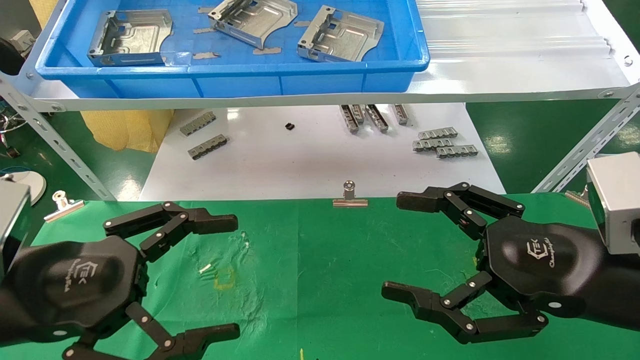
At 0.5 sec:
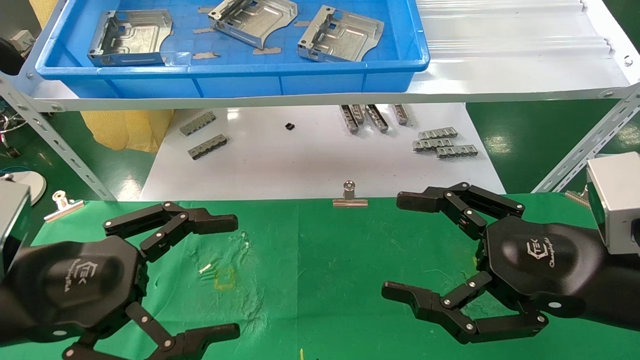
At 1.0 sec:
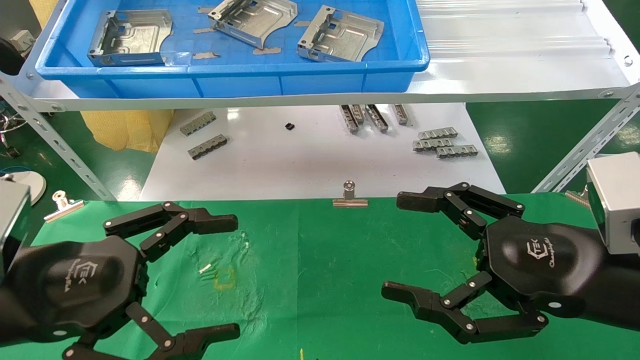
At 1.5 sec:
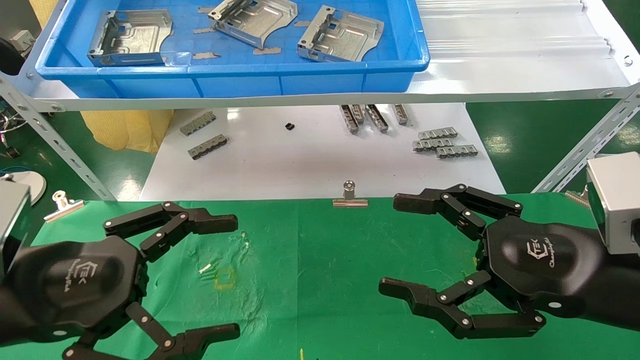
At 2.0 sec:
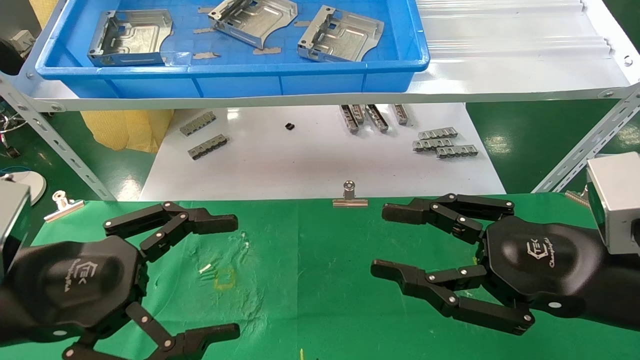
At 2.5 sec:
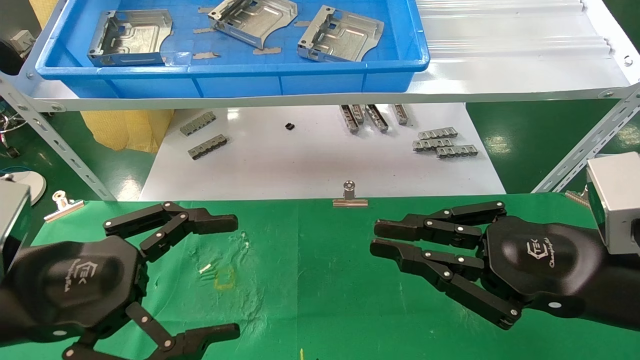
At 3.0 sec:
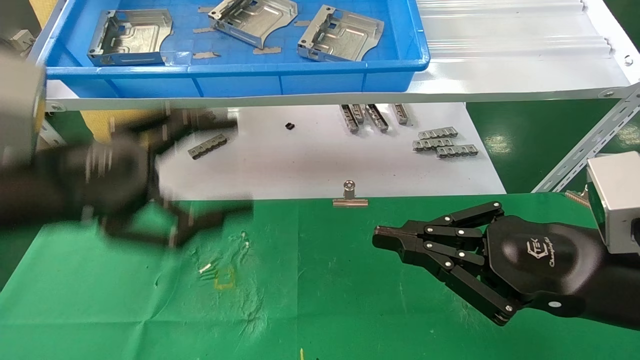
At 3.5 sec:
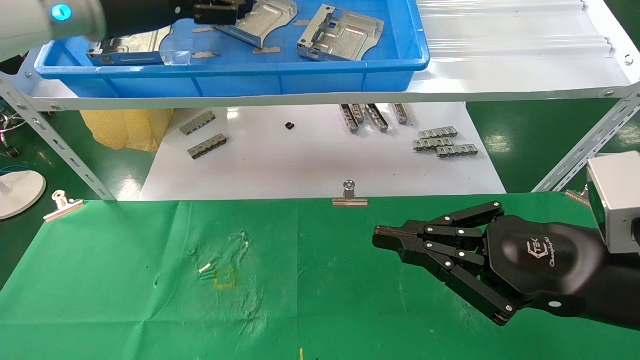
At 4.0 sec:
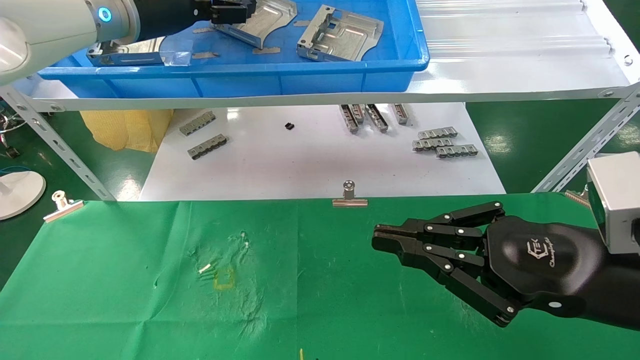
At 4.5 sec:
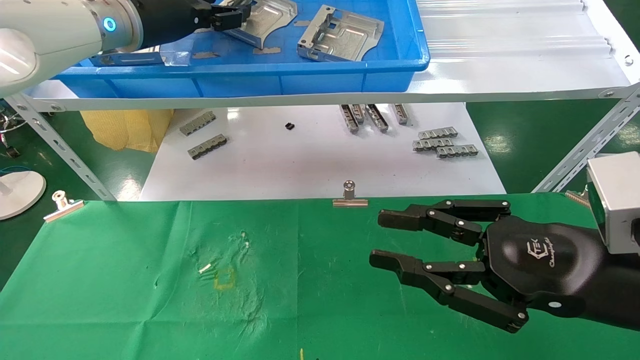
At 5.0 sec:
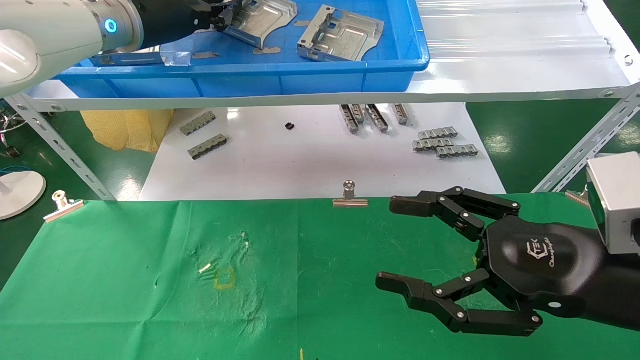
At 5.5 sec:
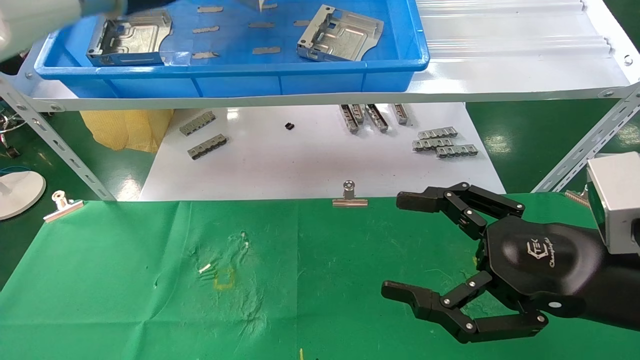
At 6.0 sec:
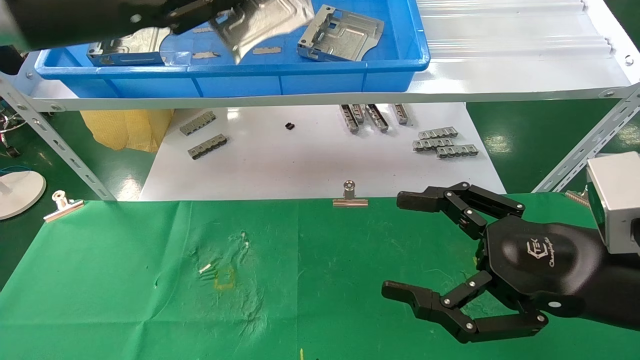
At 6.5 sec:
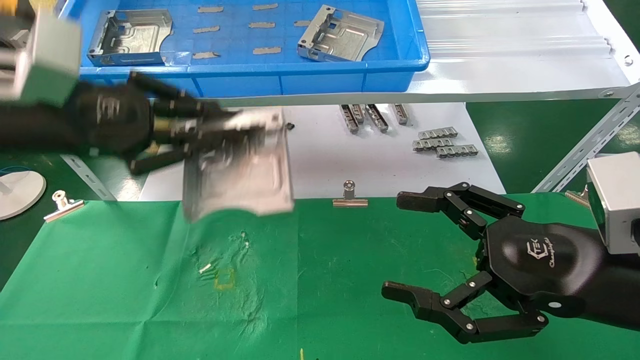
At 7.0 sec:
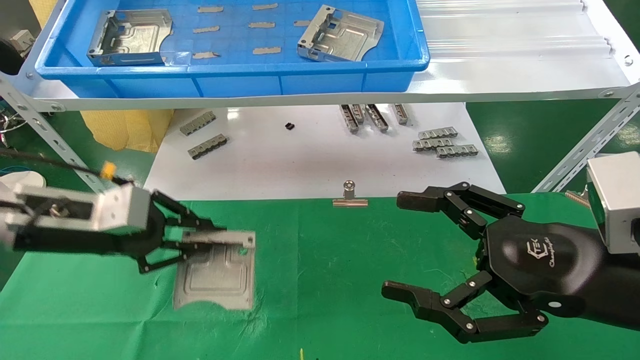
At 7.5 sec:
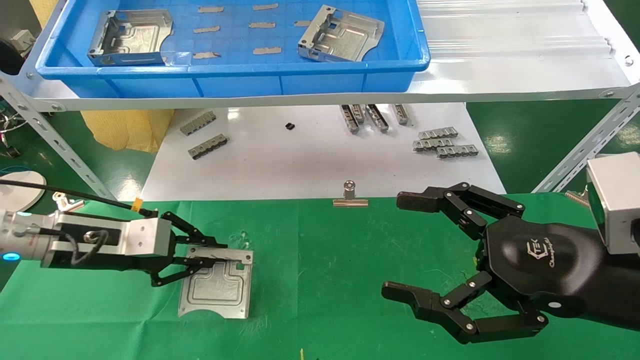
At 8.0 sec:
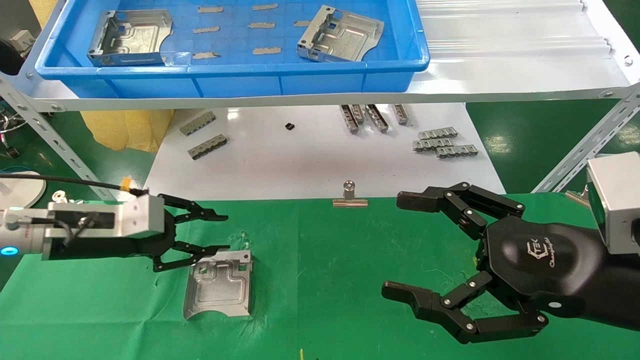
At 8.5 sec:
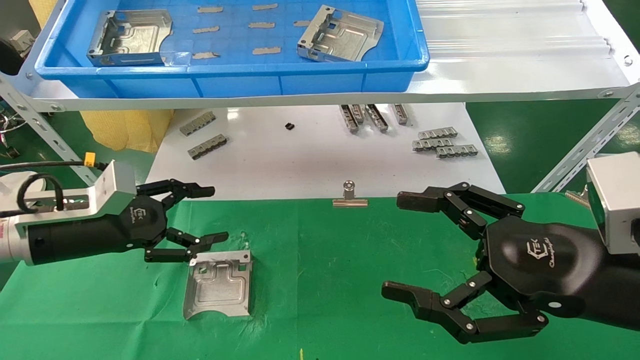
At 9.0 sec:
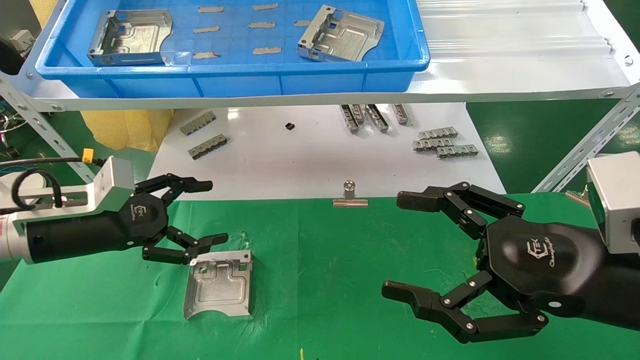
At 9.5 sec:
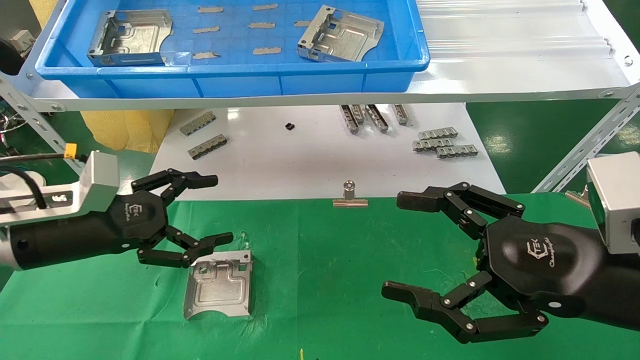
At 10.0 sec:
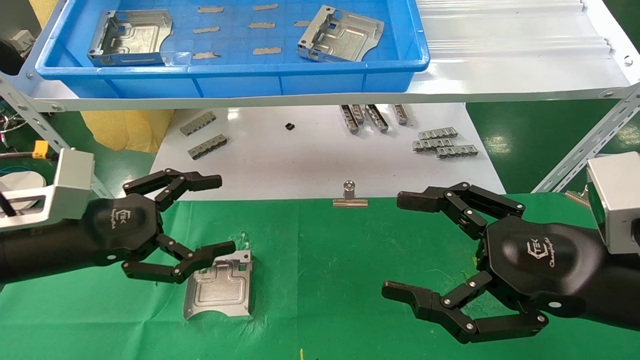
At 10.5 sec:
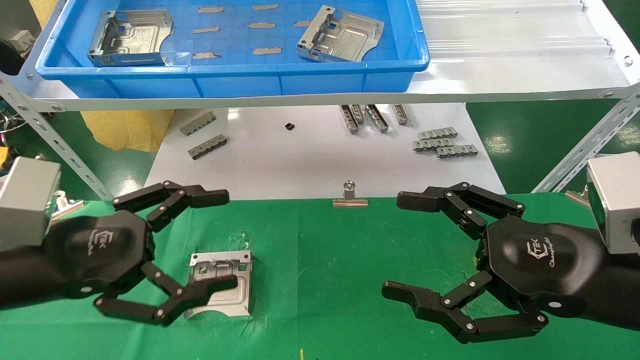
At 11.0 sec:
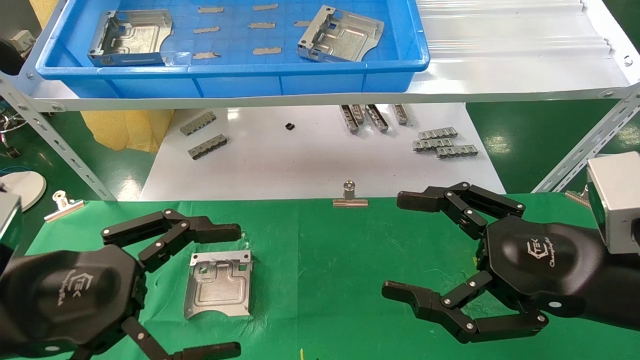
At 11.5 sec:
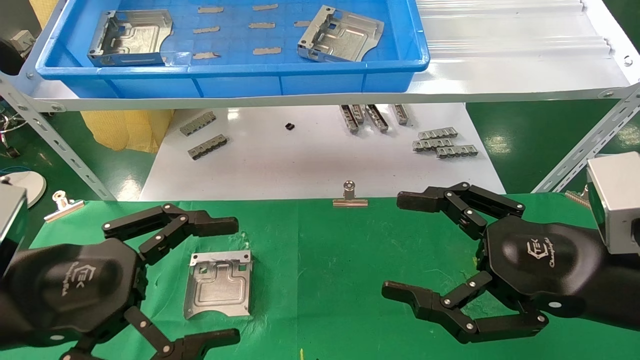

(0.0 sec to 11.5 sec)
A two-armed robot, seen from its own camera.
Task of the whole recording: use the mechanical arm to pick up the parts and place them on the table.
Step, 3.0 sec - 5.0 sec: Pick up the hard drive bracket from the feeding area.
Step, 5.5 sec - 8.0 sec: Place the hard drive bracket into the box.
0.0 sec - 2.0 sec: The right gripper closes.
2.0 sec - 4.0 sec: The left gripper heads forward and upward, covering approximately 35 cm, while the right gripper closes up.
4.0 sec - 6.0 sec: The left gripper goes about 10 cm backward, and closes, while the right gripper opens.
6.0 sec - 7.5 sec: The left gripper is displaced downward by about 25 cm.
7.5 sec - 9.5 sec: The left gripper opens.
9.5 sec - 11.5 sec: The left gripper shifts approximately 15 cm backward.

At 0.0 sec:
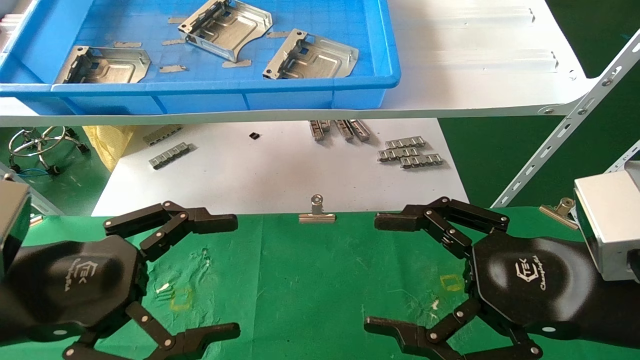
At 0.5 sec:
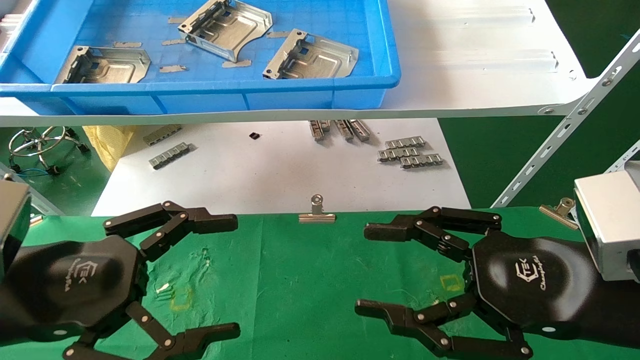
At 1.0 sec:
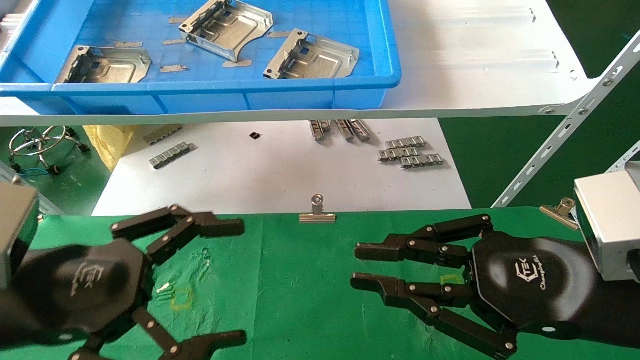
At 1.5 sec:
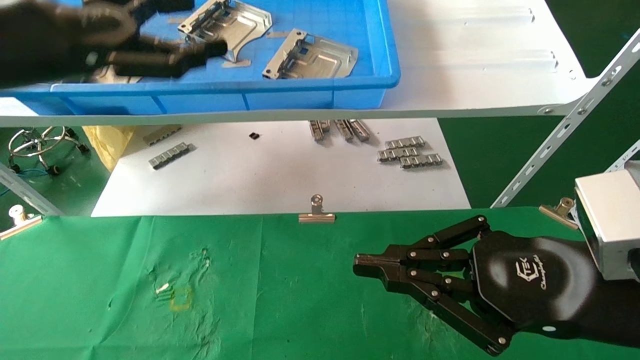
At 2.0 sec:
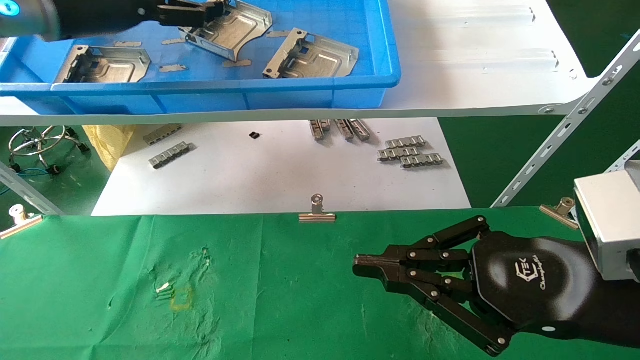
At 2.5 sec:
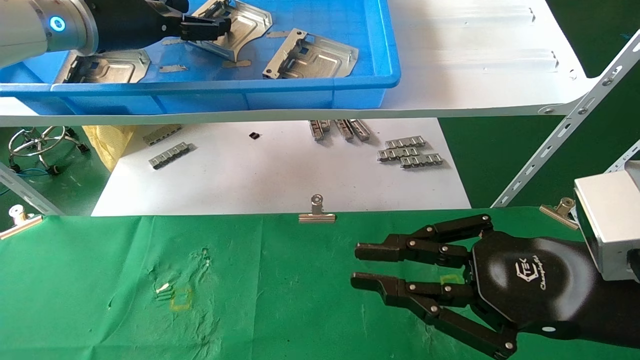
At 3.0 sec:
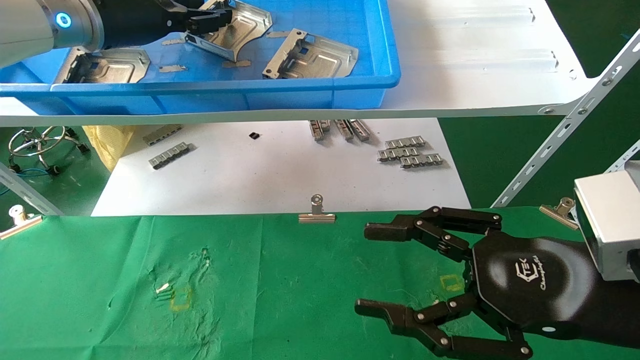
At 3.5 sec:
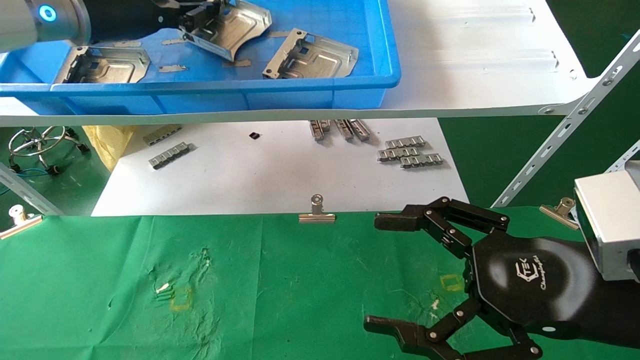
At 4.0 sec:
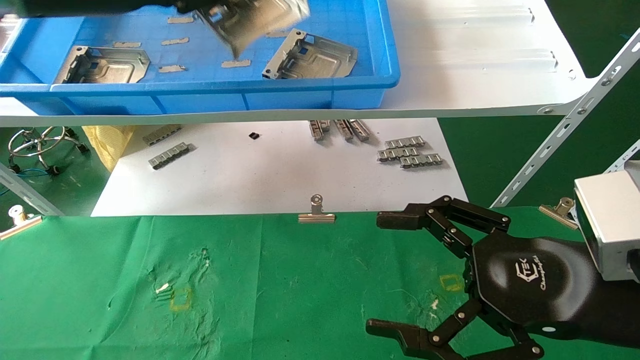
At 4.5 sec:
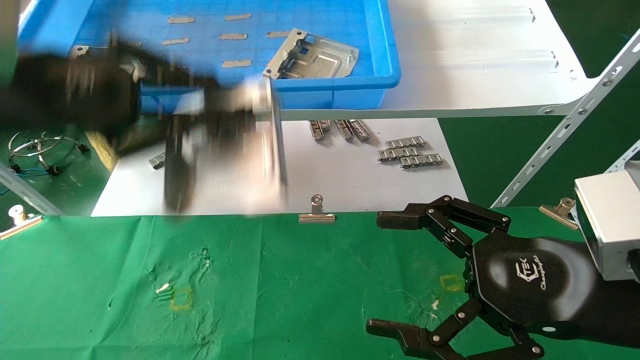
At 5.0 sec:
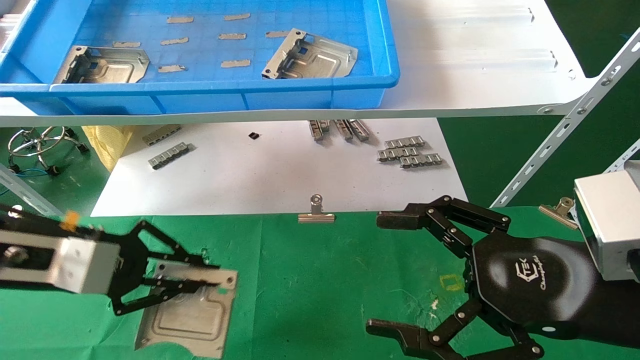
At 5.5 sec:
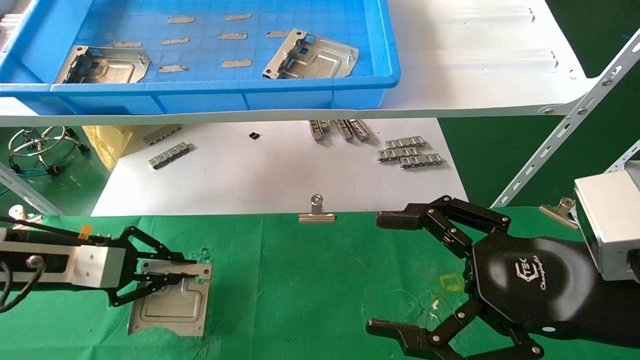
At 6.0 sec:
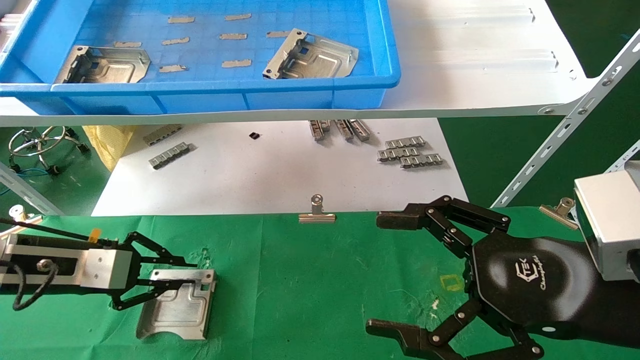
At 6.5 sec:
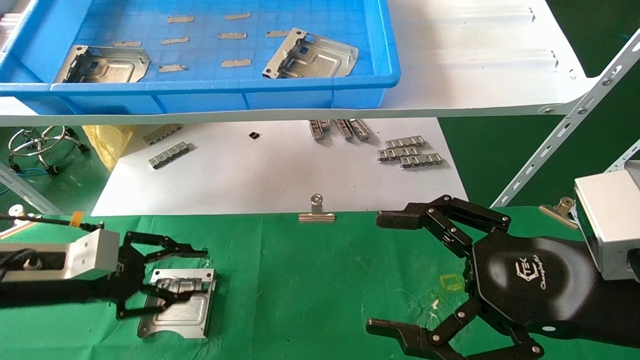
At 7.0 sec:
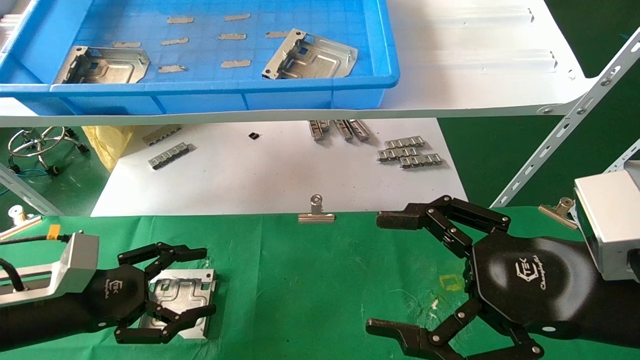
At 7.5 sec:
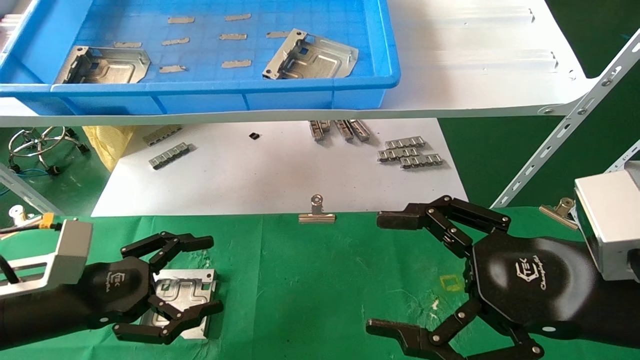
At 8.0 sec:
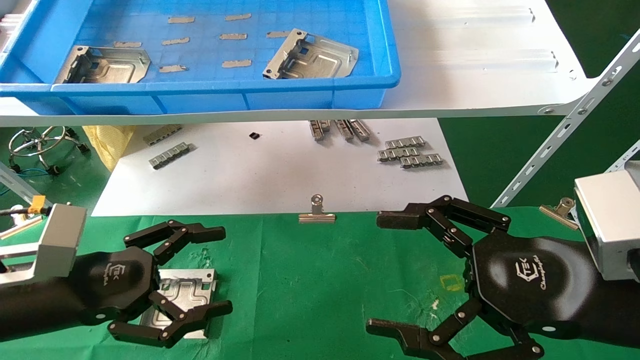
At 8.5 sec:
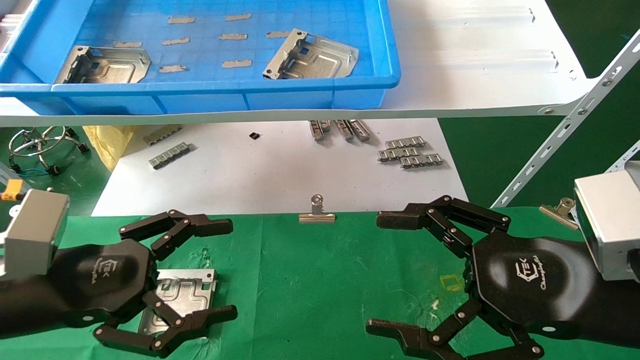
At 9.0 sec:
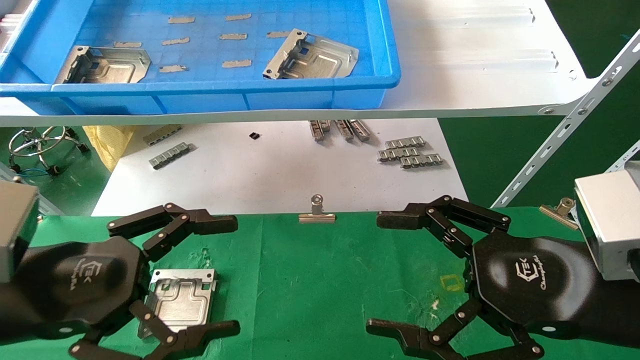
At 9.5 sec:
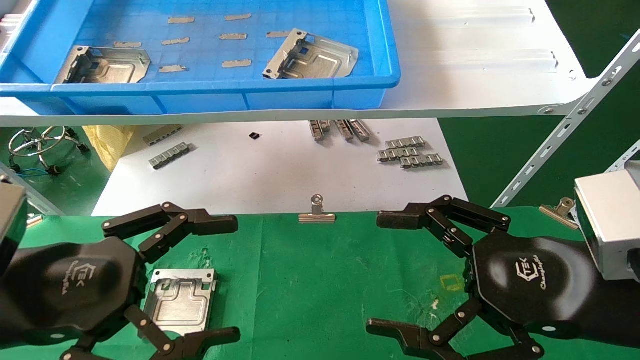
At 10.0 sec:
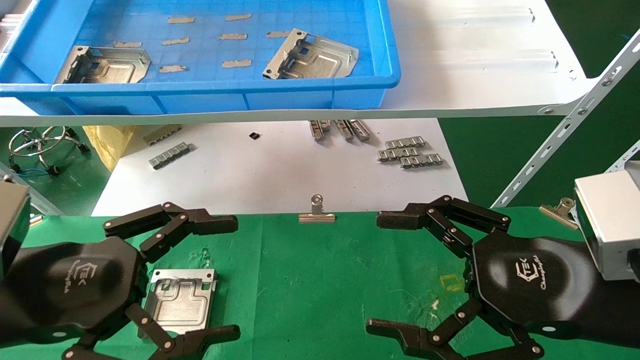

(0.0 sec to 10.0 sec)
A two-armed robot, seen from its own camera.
Task of the whole recording: use the mechanical arm to pick up the parts and place them on the table.
Step, 1.5 sec - 3.5 sec: Pick up the hard drive bracket from the feeding area.
Step, 4.0 sec - 6.5 sec: Place the hard drive bracket into the box.
0.0 sec - 2.0 sec: The left gripper goes roughly 30 cm upward and forward. Meanwhile the right gripper closes its fingers.
2.0 sec - 4.0 sec: The left gripper travels backward by roughly 5 cm, and closes its fingers, while the right gripper opens its fingers.
4.0 sec - 6.0 sec: The left gripper travels downward by about 30 cm.
6.0 sec - 8.0 sec: The left gripper travels backward and to the right by some 10 cm, and opens up.
8.0 sec - 10.0 sec: The left gripper shifts some 10 cm backward and upward.
